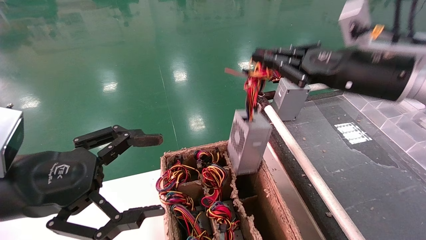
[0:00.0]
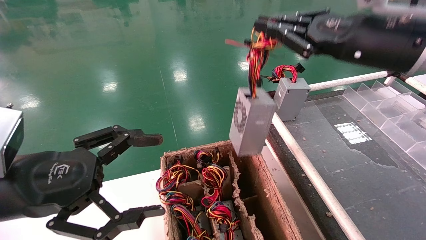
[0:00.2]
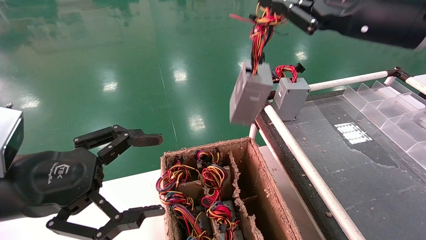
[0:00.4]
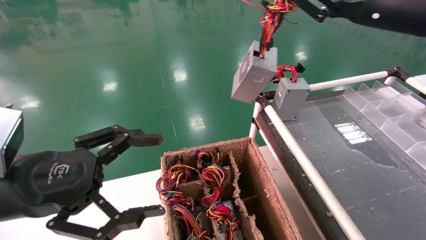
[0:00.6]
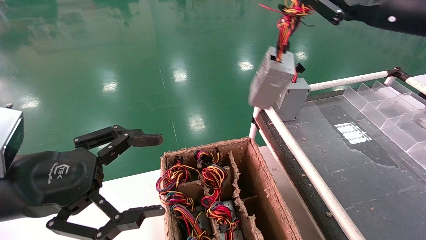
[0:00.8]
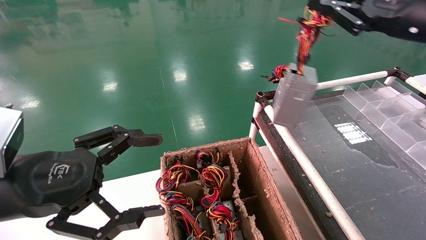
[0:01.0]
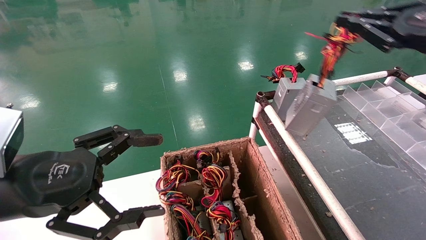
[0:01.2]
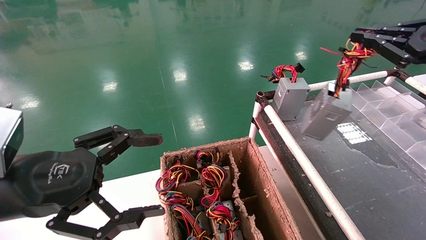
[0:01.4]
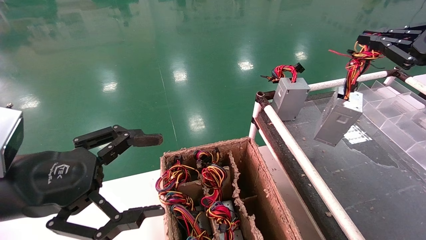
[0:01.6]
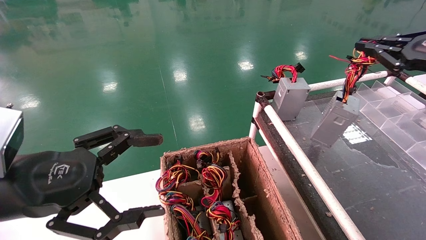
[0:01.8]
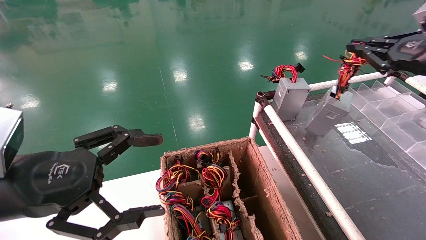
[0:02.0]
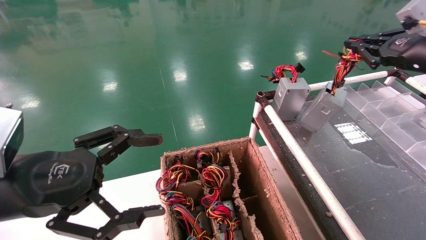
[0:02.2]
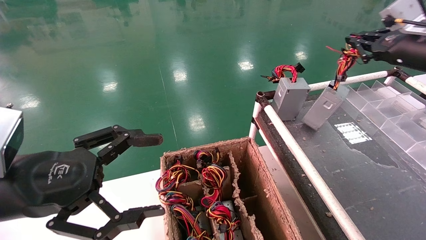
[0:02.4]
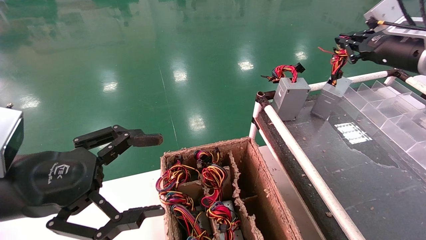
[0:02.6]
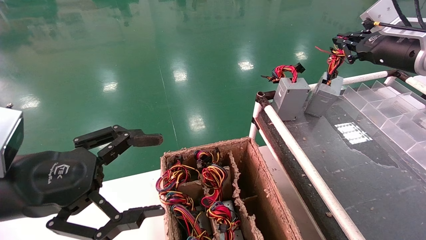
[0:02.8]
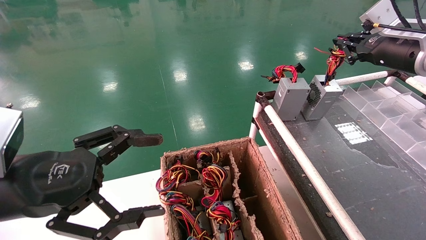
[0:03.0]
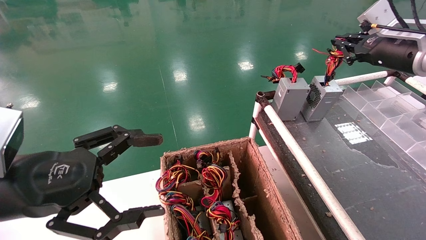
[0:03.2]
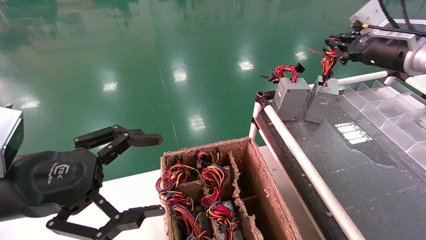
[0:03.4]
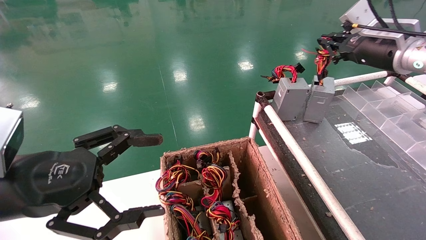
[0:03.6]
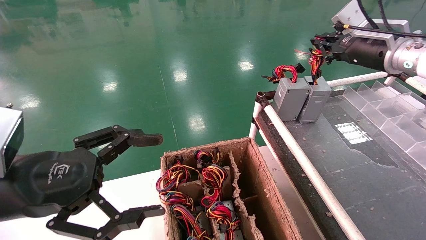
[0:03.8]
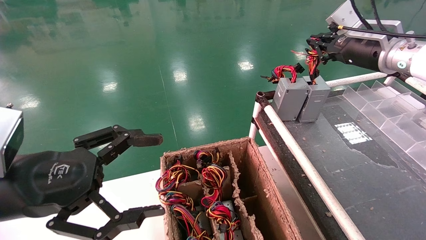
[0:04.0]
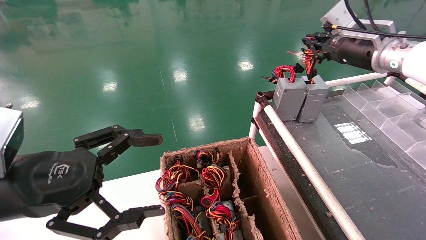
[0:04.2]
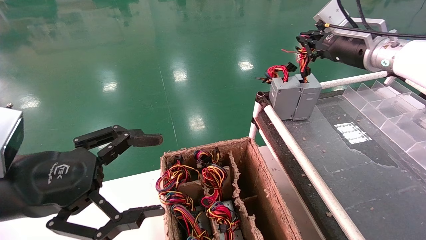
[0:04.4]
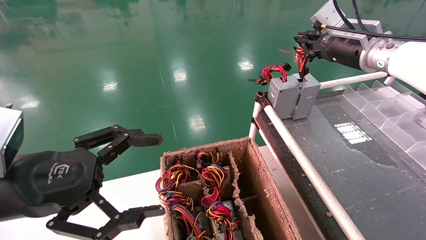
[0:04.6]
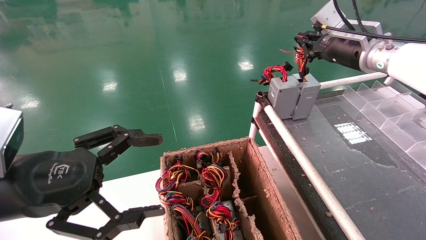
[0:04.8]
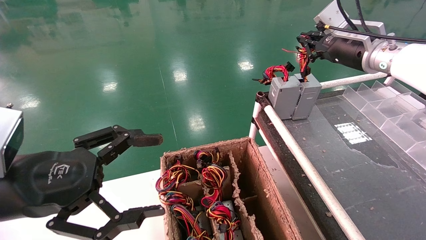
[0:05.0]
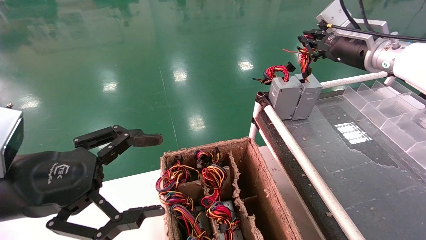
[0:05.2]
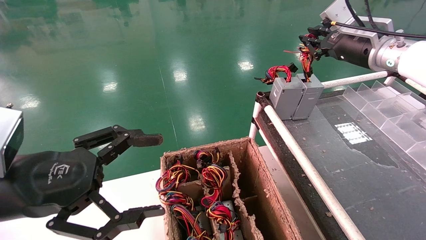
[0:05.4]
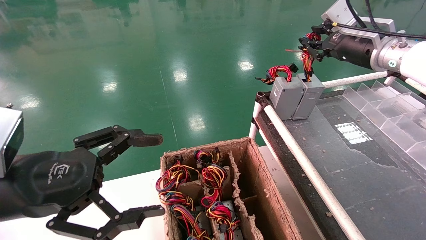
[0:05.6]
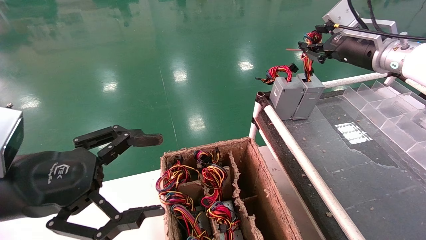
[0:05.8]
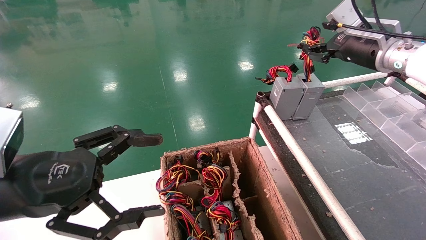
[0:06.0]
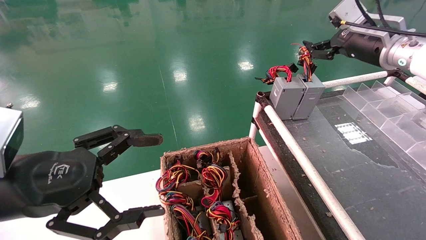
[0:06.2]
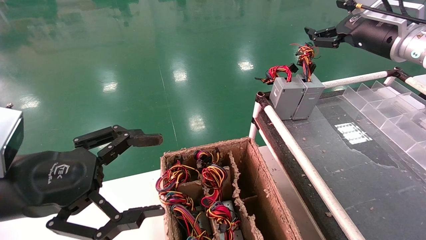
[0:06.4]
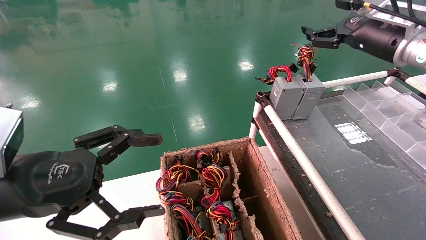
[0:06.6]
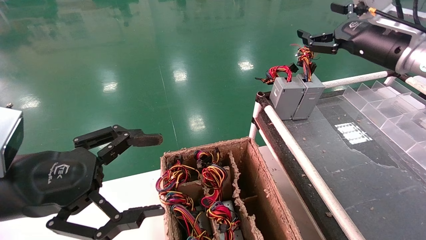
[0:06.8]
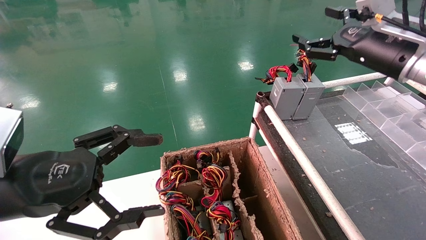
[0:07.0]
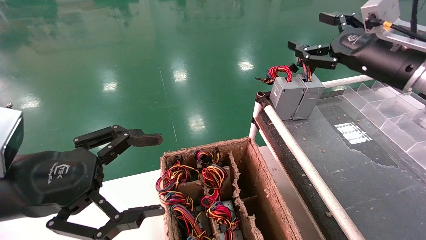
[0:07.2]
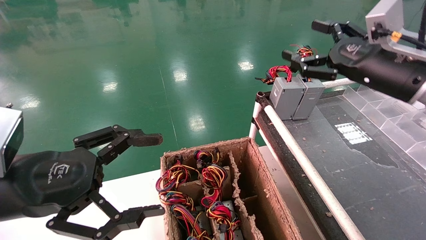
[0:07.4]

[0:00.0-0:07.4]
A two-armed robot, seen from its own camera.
Step, 0:00.0 to 0:05.2: Place the power supply on the operating table.
0:00.0 to 0:01.4: The right gripper travels to the right by roughly 15 cm.
0:01.4 to 0:03.0: The right gripper goes roughly 10 cm forward.
0:03.0 to 0:04.4: The right gripper heads to the left, covering some 10 cm.
0:04.4 to 0:06.0: The right gripper opens its fingers.
0:06.0 to 0:07.4: The right gripper moves backward, some 10 cm, and opens.
